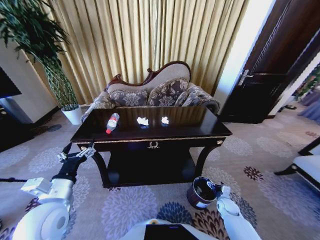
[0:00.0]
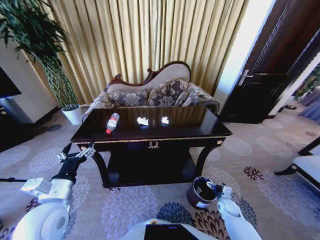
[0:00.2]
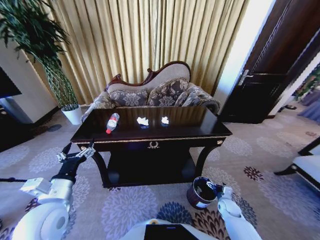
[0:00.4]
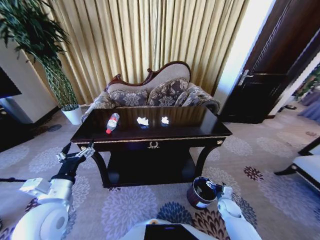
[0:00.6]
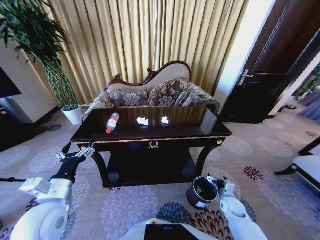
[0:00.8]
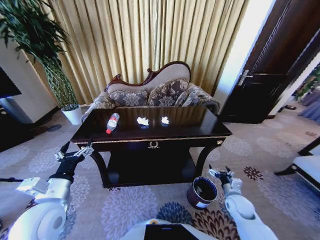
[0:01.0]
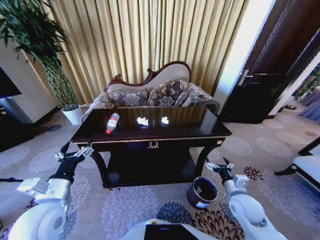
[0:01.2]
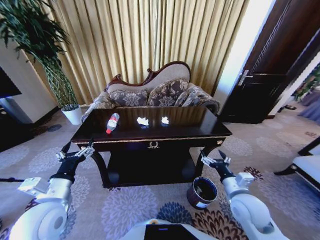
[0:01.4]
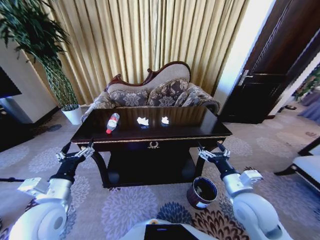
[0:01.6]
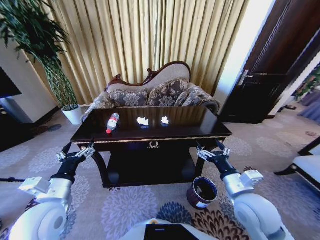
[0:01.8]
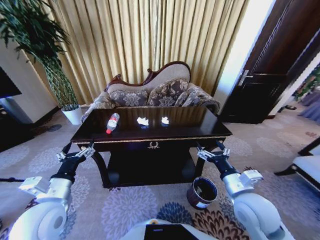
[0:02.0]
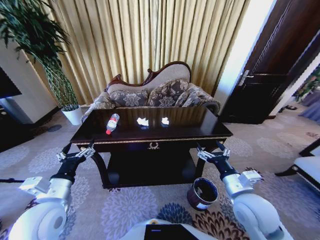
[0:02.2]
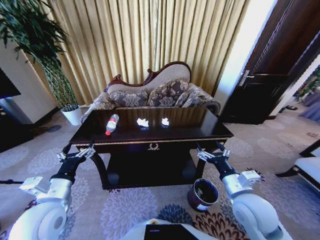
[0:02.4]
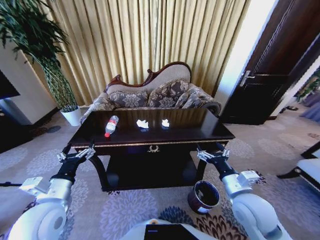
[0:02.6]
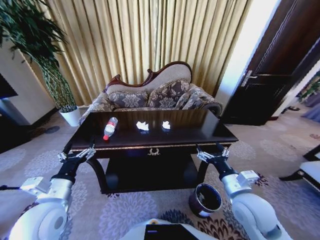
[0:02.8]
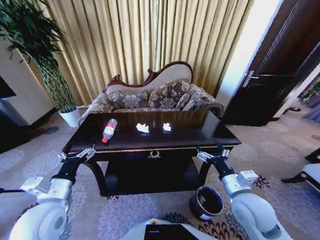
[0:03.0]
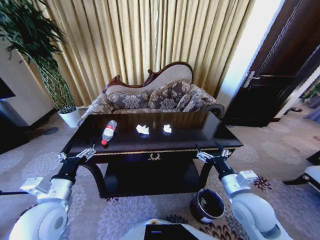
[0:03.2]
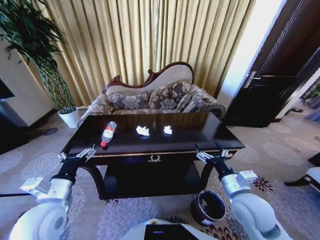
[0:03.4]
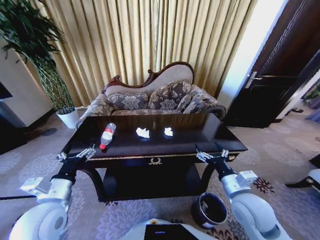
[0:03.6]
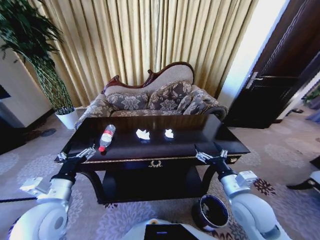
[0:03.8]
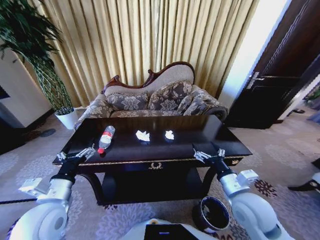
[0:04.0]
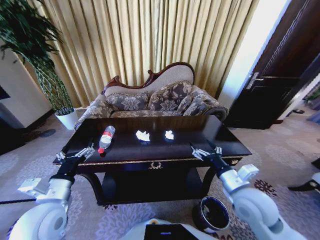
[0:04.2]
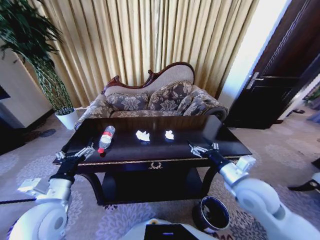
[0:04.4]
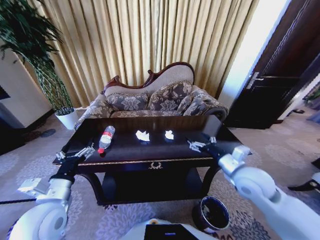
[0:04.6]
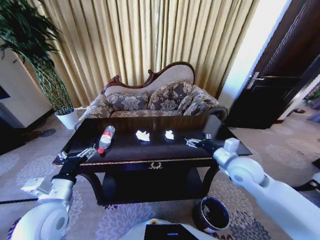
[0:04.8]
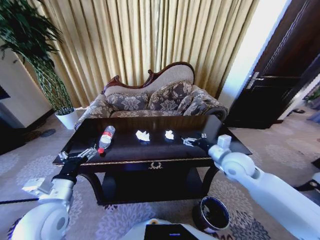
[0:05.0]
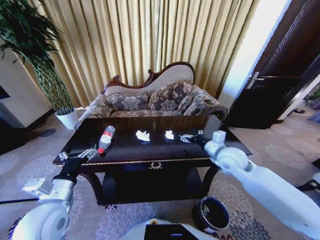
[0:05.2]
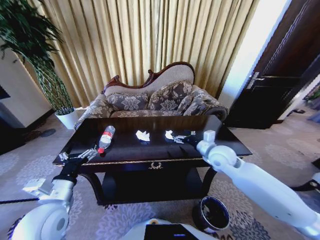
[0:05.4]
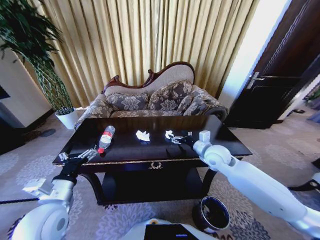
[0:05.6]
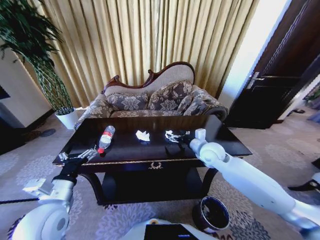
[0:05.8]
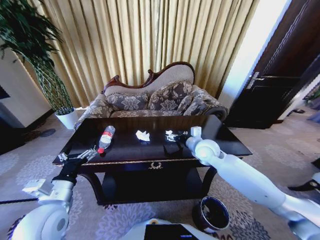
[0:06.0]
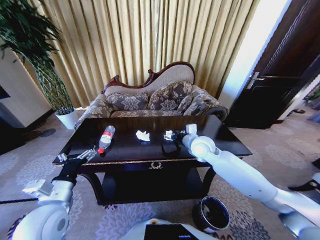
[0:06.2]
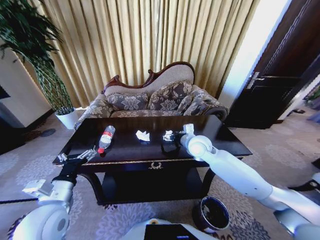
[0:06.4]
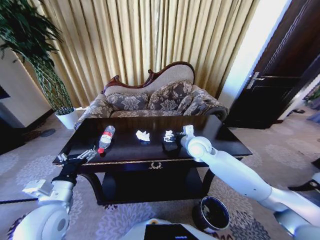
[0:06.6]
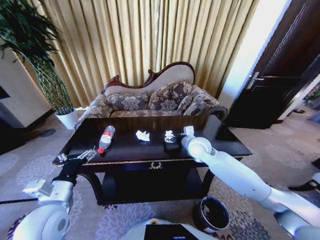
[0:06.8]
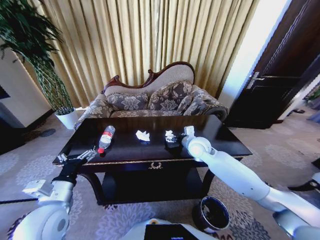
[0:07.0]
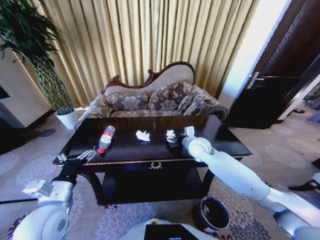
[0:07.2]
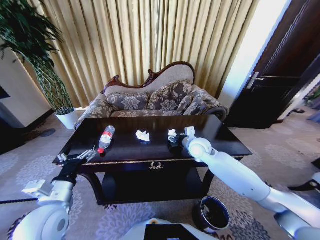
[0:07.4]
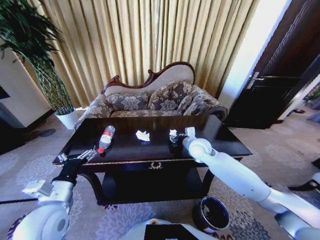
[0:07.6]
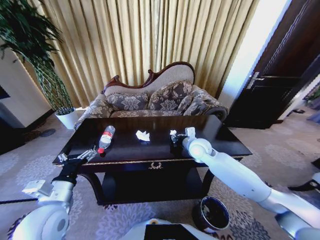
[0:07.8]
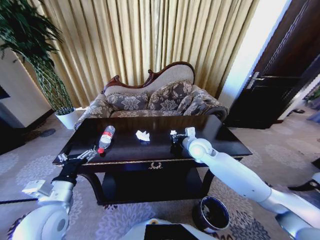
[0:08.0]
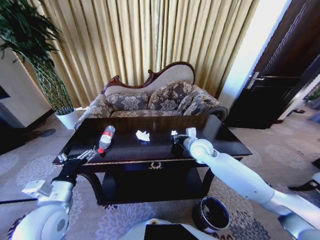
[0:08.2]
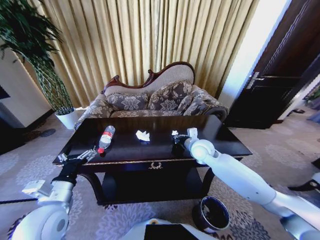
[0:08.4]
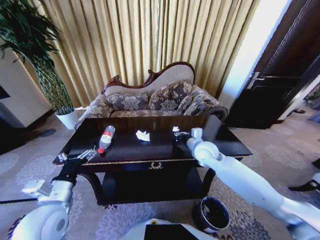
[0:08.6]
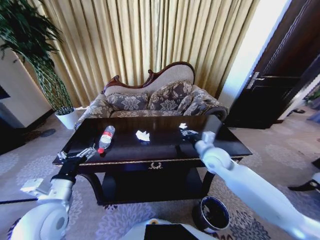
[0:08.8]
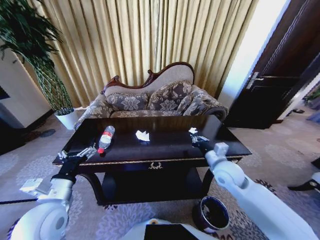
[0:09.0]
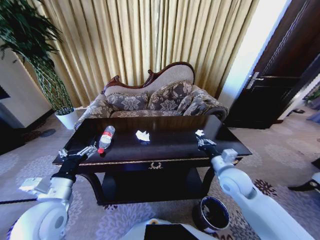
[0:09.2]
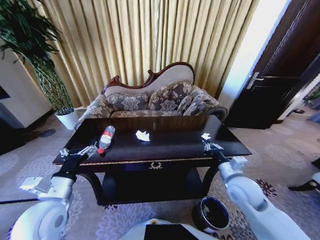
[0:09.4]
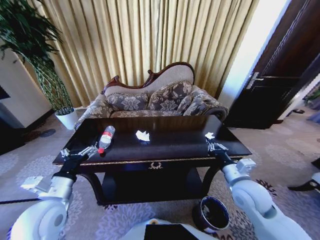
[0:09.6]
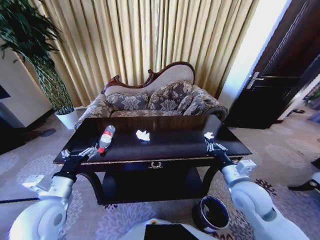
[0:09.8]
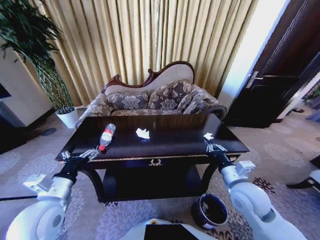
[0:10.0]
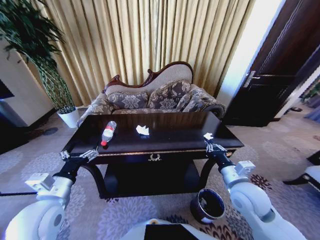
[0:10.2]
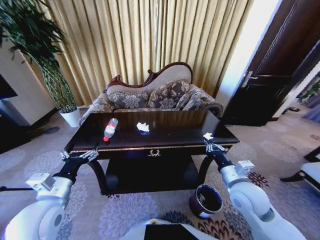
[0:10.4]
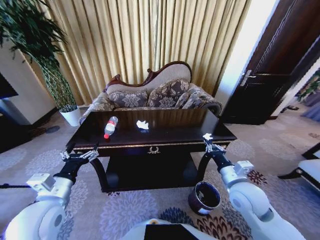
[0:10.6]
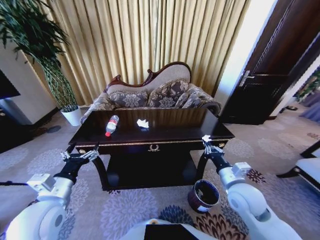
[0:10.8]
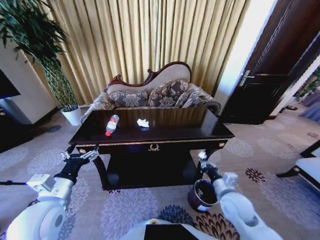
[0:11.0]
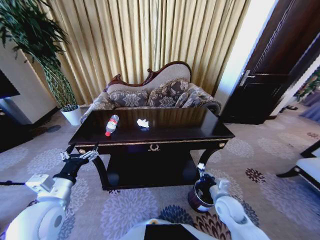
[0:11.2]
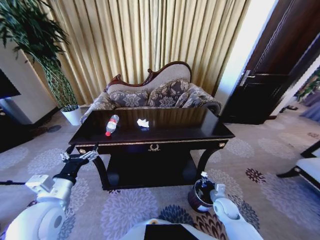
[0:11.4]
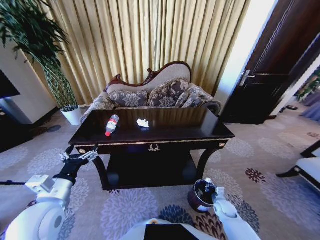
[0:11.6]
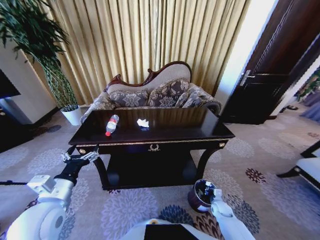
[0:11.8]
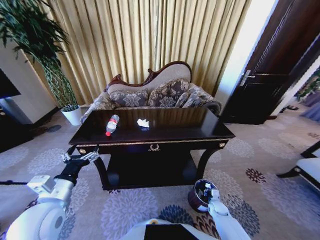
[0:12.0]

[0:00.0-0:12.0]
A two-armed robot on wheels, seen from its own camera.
Task of the whole recording: Move to the front of the table and place the trash on the table into the trash bin.
0:00.0 to 0:01.6: The right gripper shifts about 30 cm upward.
0:04.4 to 0:06.0: The right gripper travels forward and to the left by roughly 20 cm.
0:06.0 to 0:07.6: The right gripper closes its fingers.
0:07.6 to 0:09.0: The right gripper moves backward and to the right, roughly 15 cm, and closes.
0:09.0 to 0:10.4: The right gripper is displaced backward by about 10 cm.
0:10.4 to 0:12.0: The right gripper heads downward, covering about 35 cm.

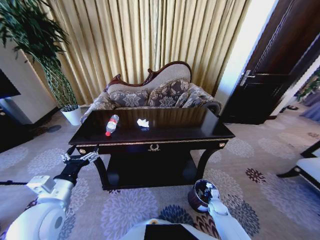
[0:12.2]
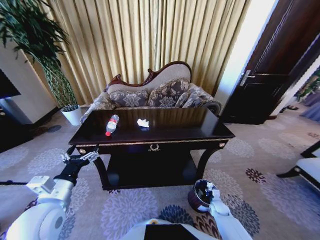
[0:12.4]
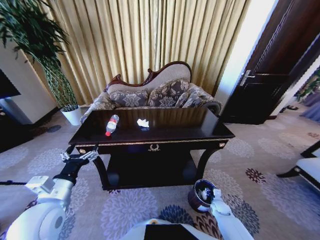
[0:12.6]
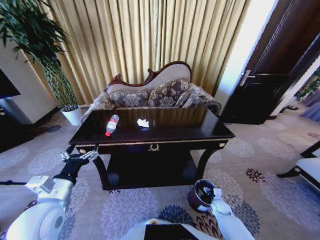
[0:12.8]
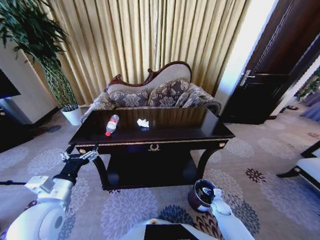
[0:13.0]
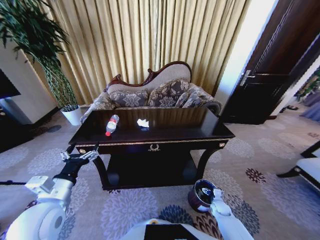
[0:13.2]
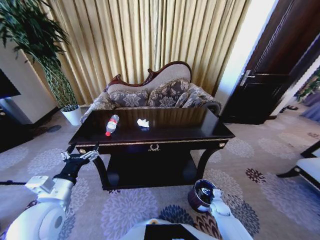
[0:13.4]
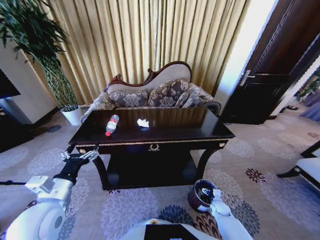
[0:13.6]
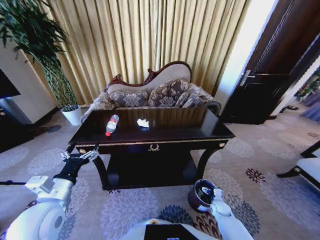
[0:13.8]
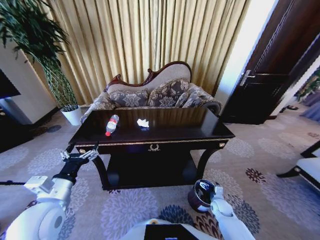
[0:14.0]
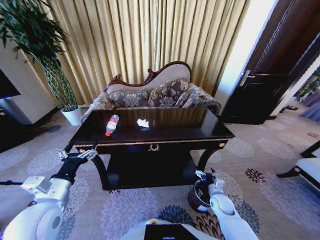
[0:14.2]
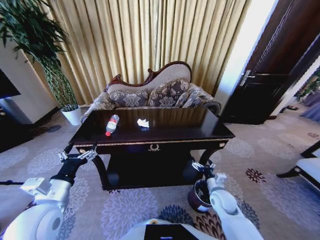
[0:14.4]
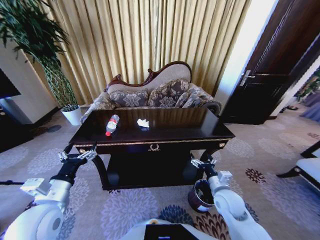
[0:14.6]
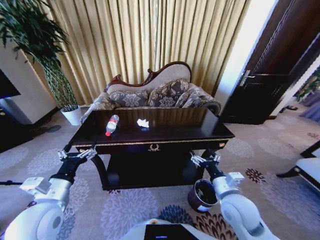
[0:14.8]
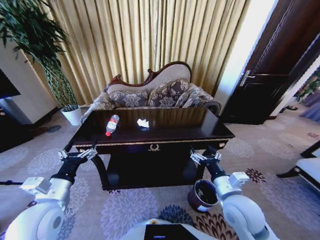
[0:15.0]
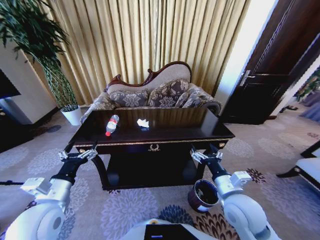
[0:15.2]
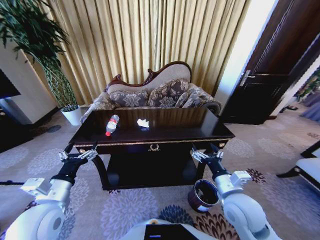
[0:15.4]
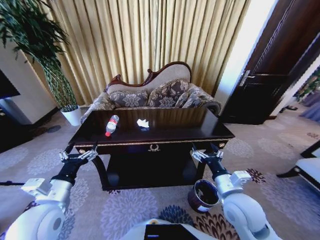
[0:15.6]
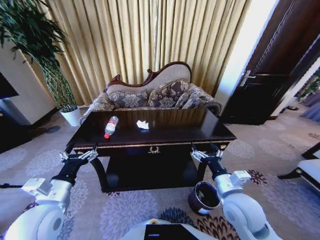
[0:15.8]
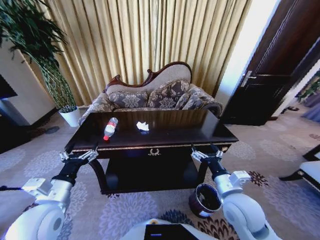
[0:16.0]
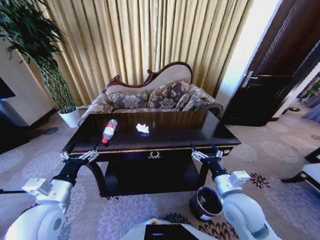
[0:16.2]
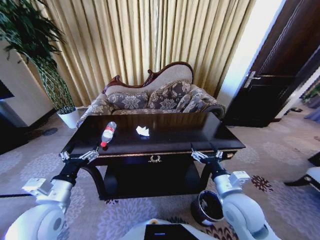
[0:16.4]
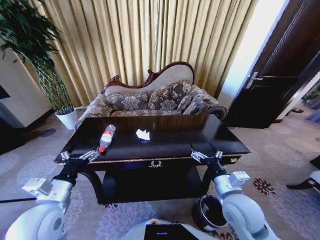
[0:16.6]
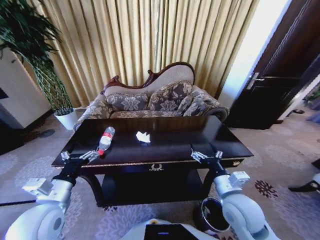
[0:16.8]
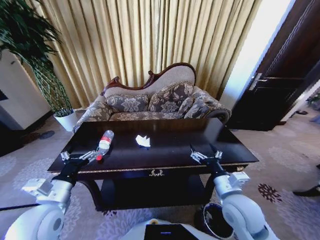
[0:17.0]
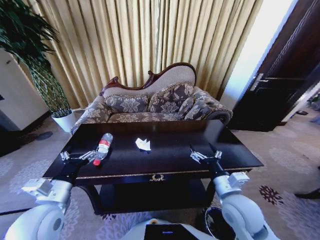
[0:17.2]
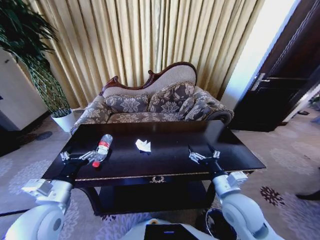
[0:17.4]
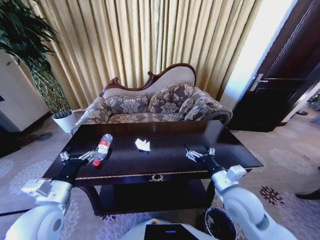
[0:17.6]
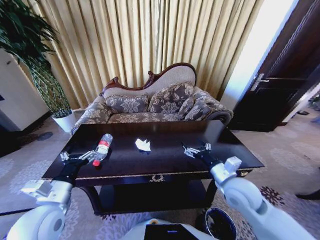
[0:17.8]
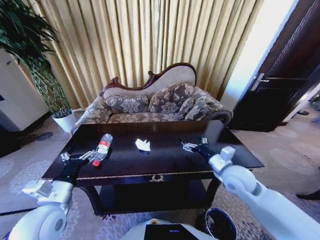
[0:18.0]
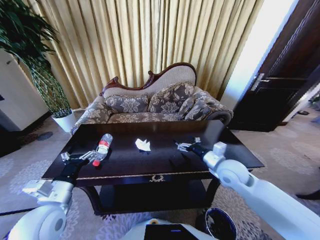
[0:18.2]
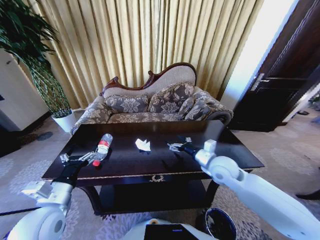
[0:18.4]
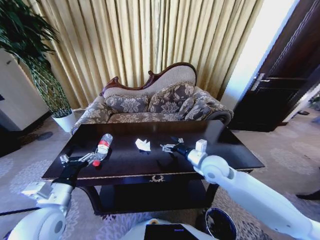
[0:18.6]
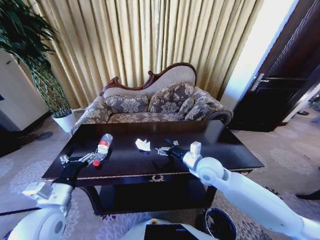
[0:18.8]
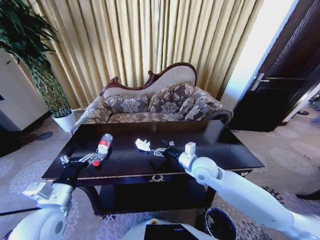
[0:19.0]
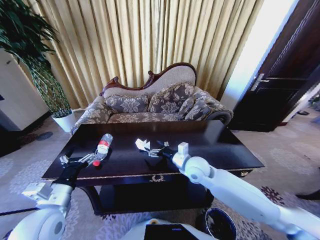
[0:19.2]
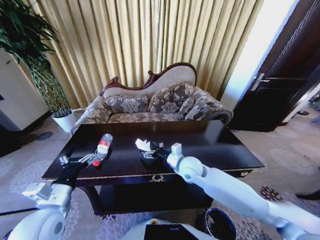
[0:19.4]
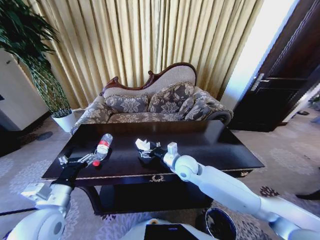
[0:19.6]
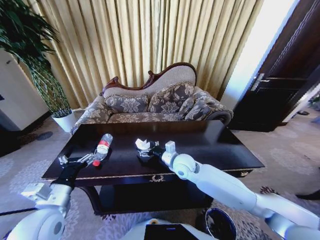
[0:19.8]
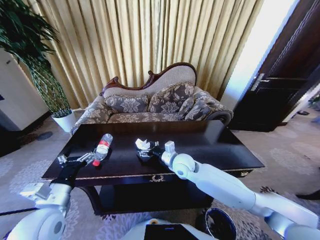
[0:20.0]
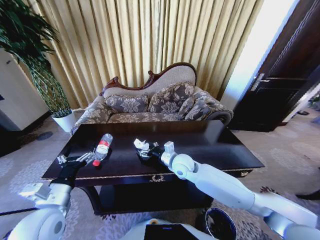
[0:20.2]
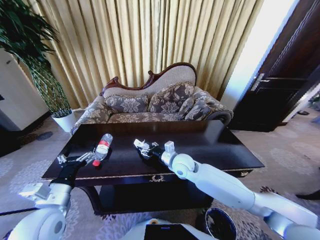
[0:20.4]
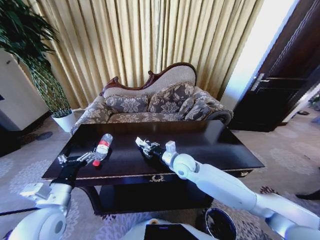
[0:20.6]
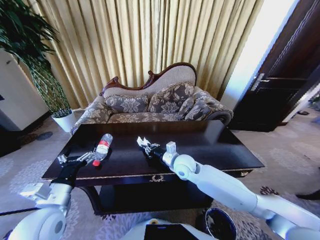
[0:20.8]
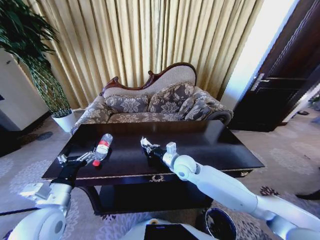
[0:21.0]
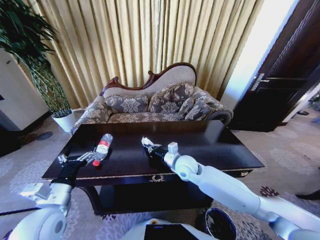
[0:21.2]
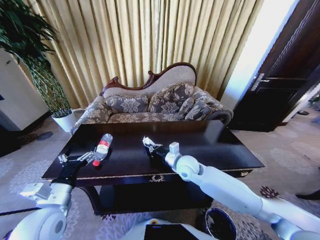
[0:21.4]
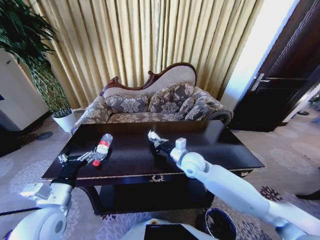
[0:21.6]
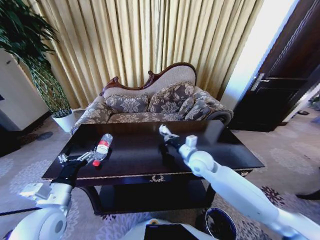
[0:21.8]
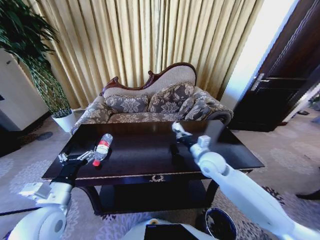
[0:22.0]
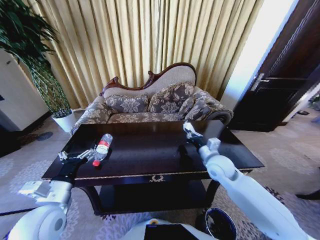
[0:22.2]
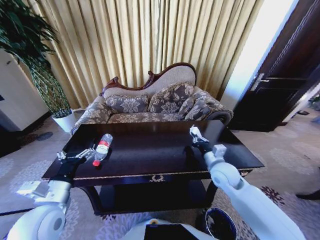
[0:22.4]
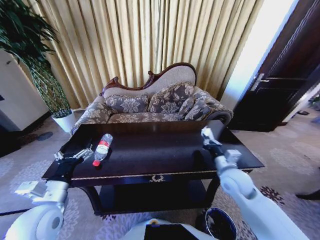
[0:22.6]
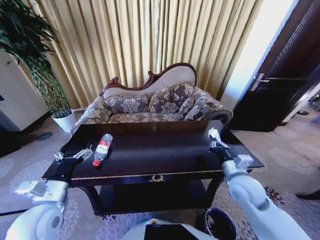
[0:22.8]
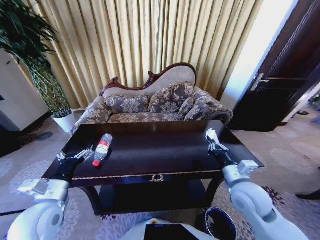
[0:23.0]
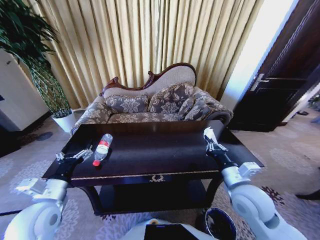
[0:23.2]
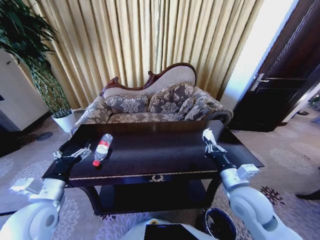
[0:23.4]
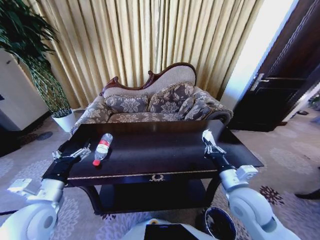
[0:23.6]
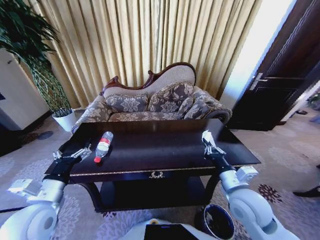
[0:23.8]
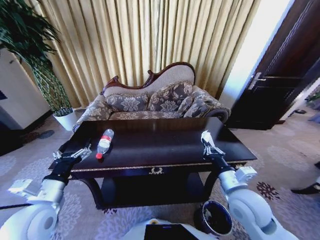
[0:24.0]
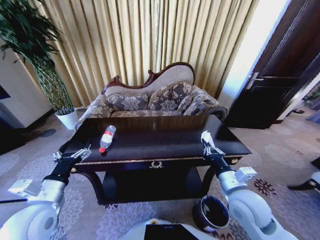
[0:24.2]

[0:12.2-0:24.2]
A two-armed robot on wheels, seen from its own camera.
Task of the whole recording: Move to the front of the table and place the trash on the table into the trash bin.
0:12.2 to 0:13.8: The right gripper opens its fingers.
0:13.8 to 0:15.2: The right gripper travels upward by about 35 cm.
0:16.6 to 0:18.2: The right gripper shifts about 10 cm forward.
0:18.2 to 0:19.8: The right gripper shifts about 15 cm to the left.
0:19.8 to 0:21.2: The right gripper closes its fingers.
0:21.2 to 0:22.6: The right gripper moves to the right and backward, some 20 cm.
0:22.6 to 0:24.2: The right gripper shifts some 10 cm backward.
